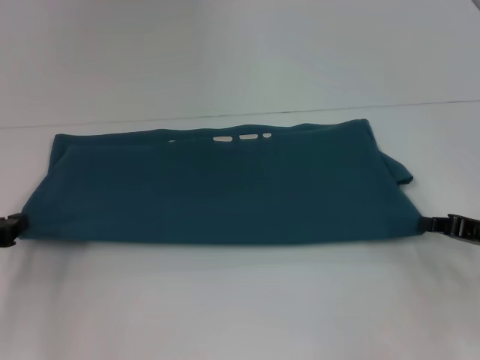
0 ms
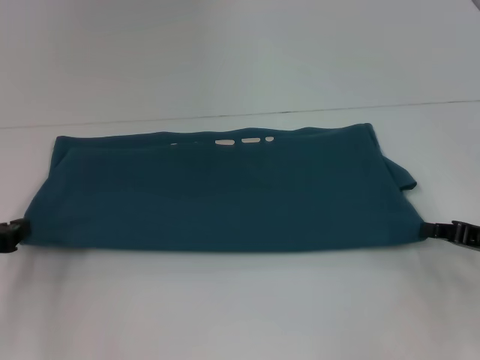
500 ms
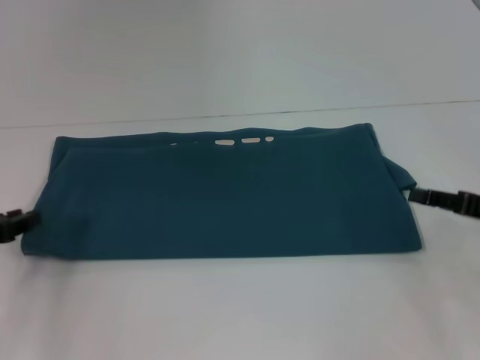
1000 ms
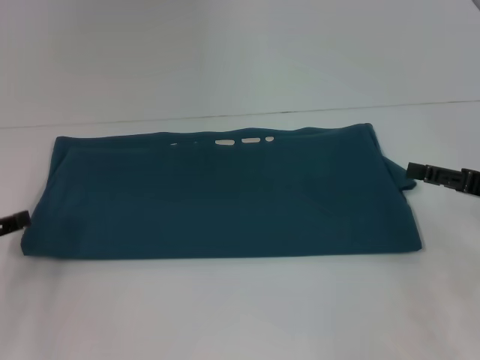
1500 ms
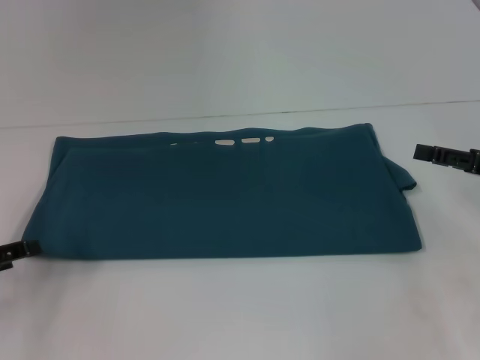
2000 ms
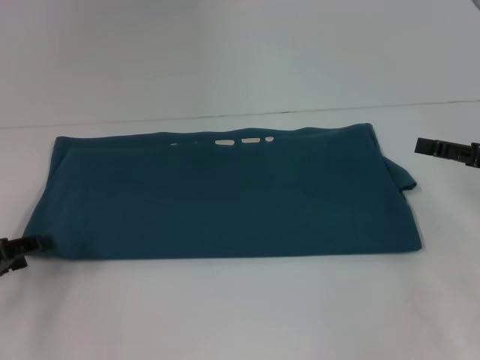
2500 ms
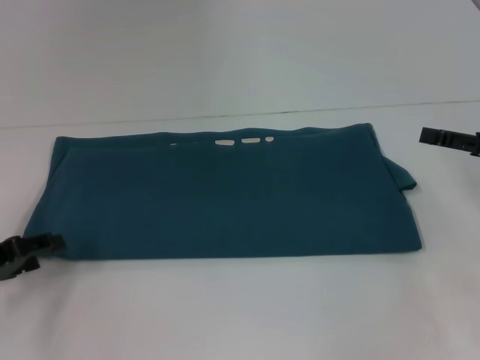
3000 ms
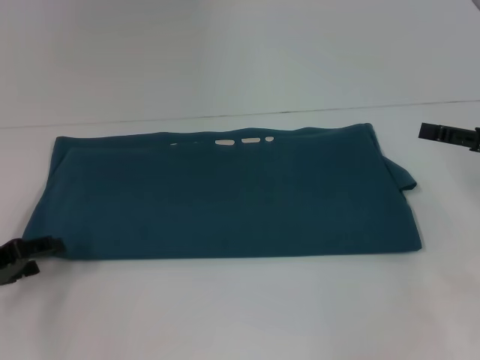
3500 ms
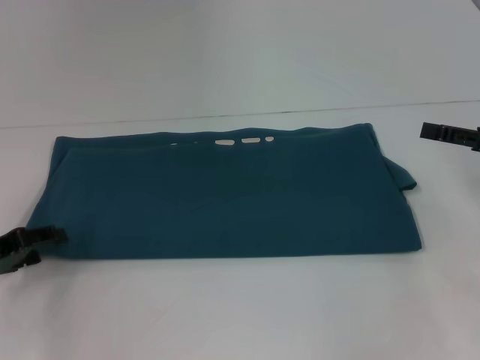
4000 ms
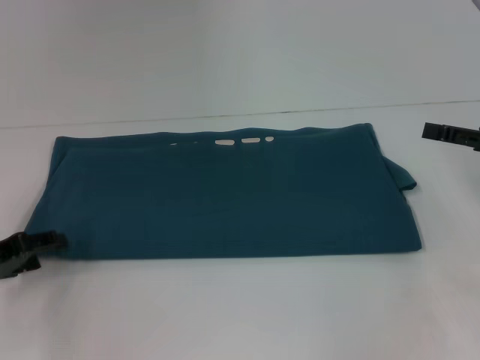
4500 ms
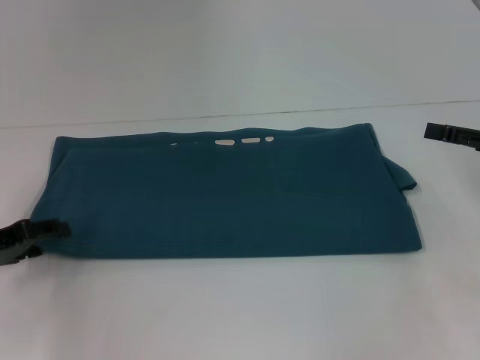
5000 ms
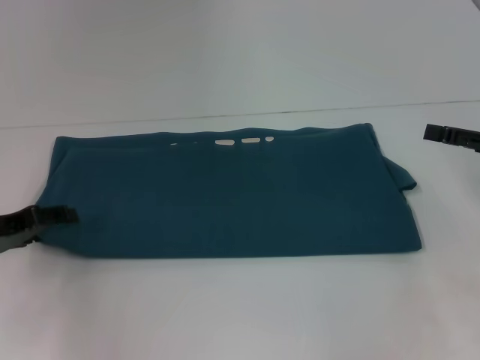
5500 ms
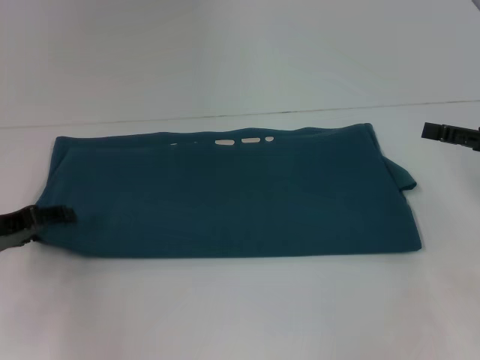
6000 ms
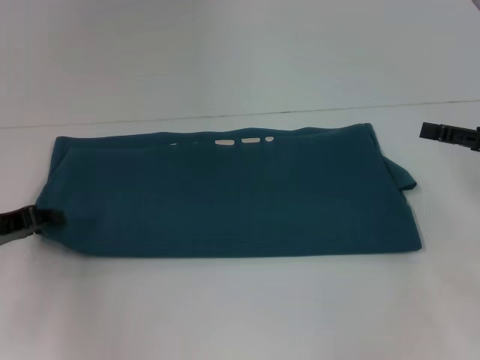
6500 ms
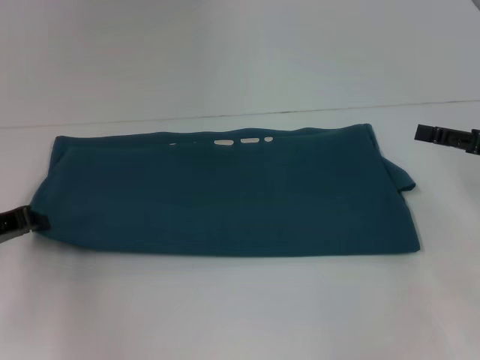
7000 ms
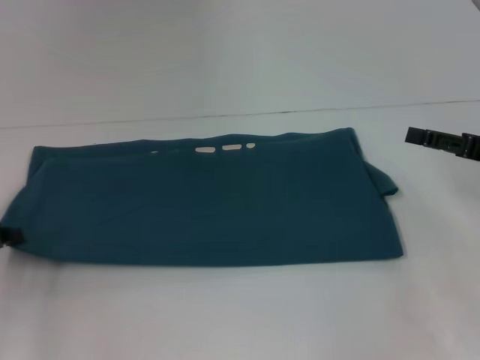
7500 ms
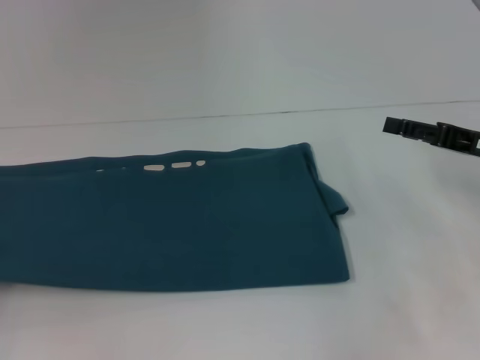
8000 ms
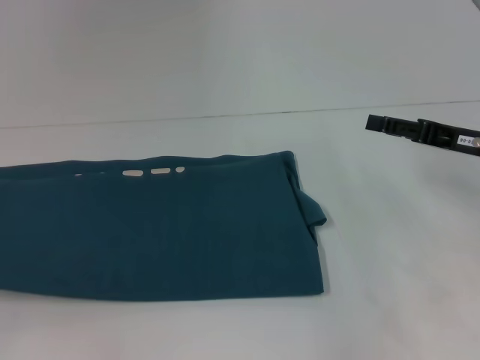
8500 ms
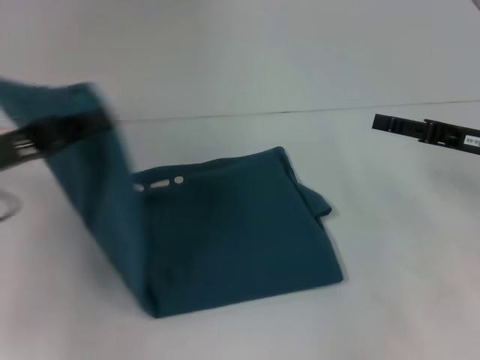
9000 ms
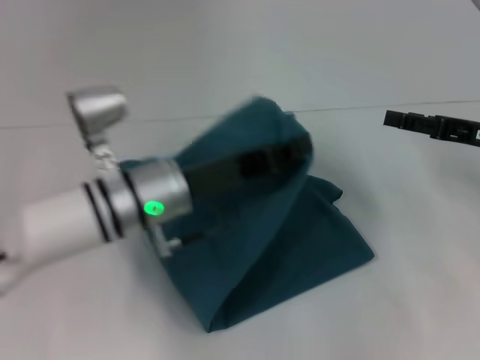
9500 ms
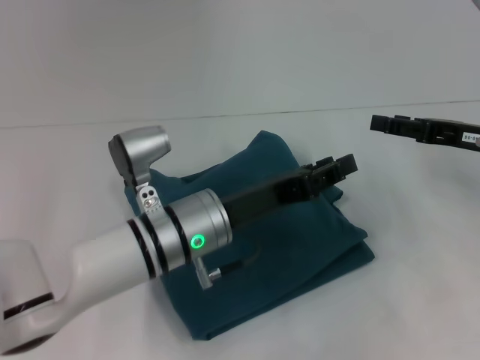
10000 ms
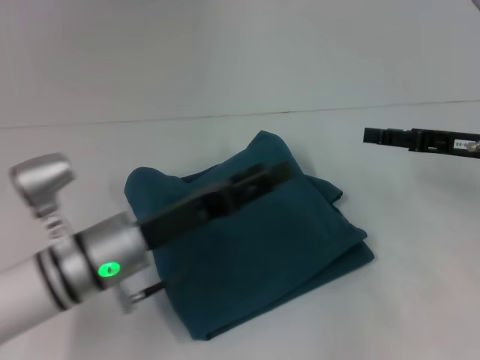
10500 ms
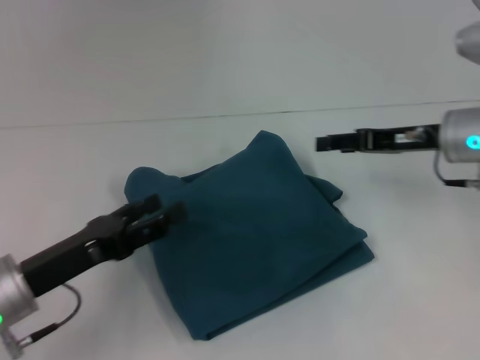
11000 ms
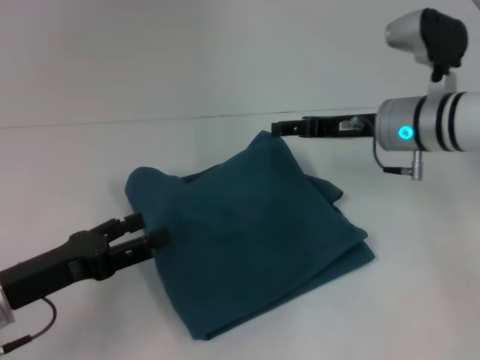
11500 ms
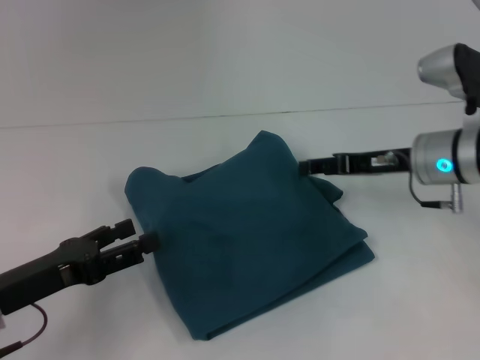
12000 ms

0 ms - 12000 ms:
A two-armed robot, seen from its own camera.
Step, 0 ms - 9500 ms: Fold the clothes to the left.
0 ms - 2000 ms: The left gripper opens its fingers. The right gripper is displaced upward by roughly 5 cm, and opens up.
2000 ms - 4000 ms: The grippers move only a little.
4000 ms - 6000 ms: The grippers move only a little.
6000 ms - 8000 ms: The left gripper heads to the left and backward, covering approximately 10 cm, and closes up.
8000 ms - 10000 ms: The left gripper travels to the right by approximately 35 cm.
10000 ms - 12000 ms: The left gripper is displaced to the left by approximately 20 cm, and opens; the right gripper travels to the left by roughly 10 cm.

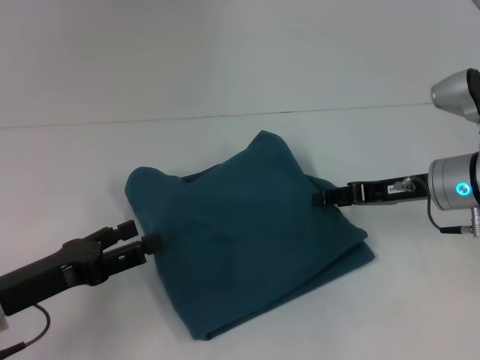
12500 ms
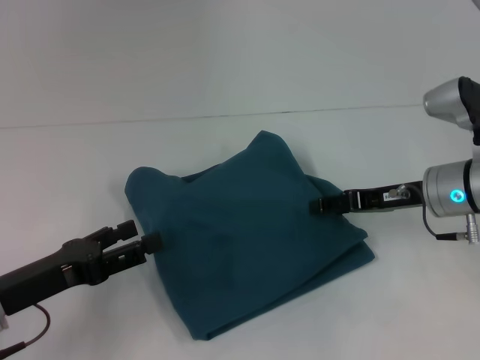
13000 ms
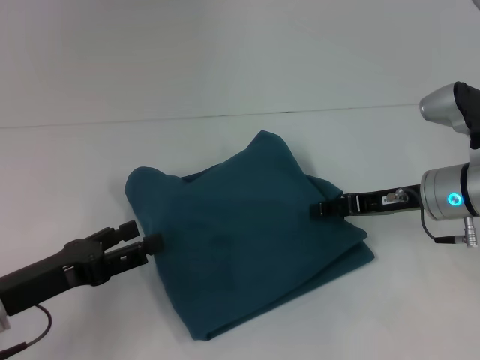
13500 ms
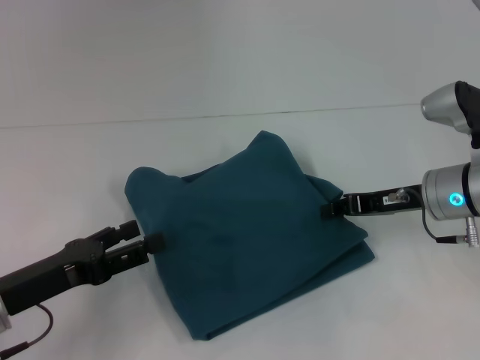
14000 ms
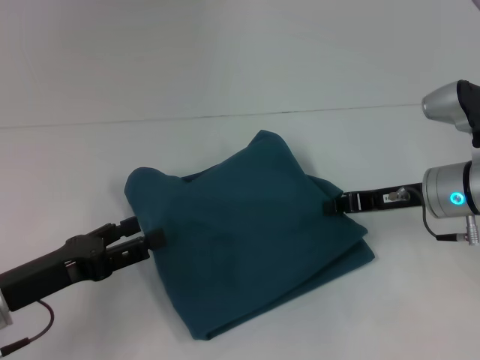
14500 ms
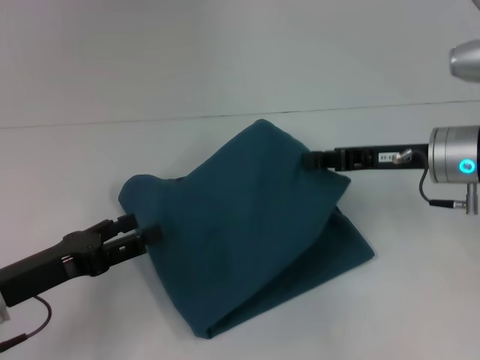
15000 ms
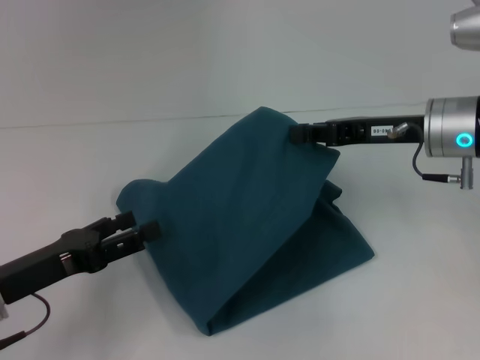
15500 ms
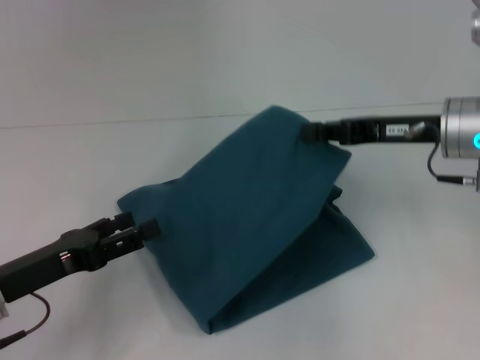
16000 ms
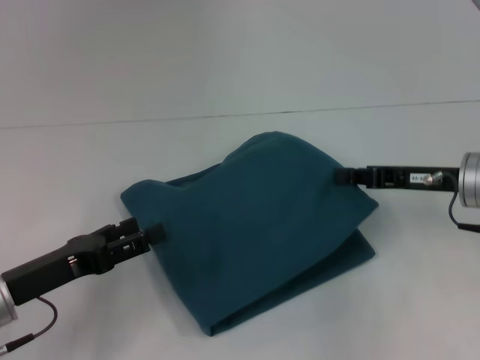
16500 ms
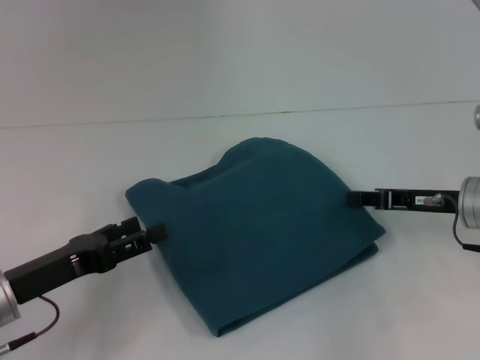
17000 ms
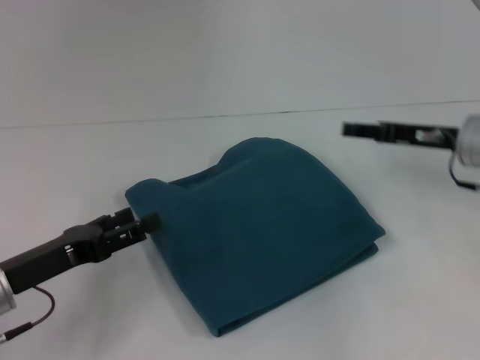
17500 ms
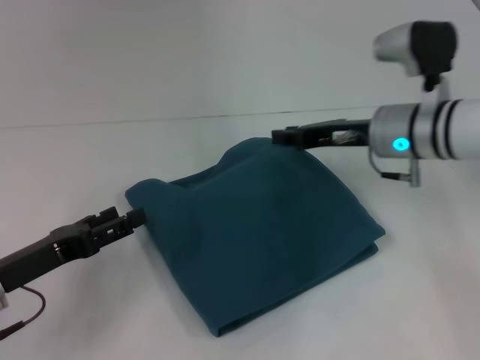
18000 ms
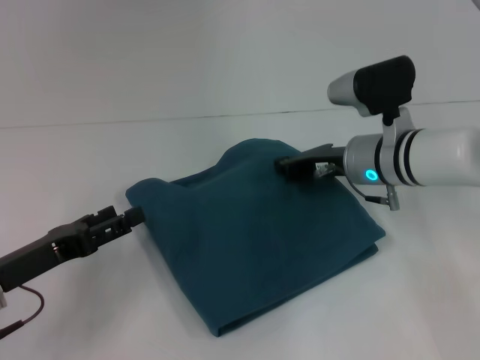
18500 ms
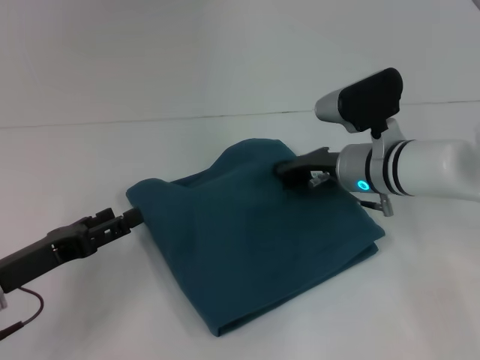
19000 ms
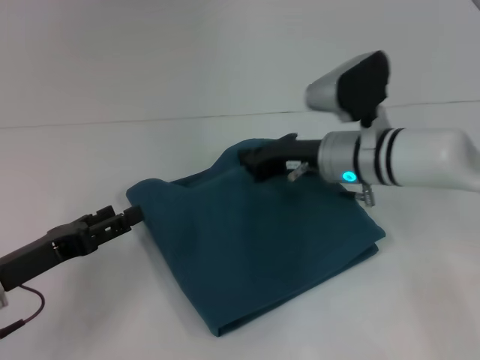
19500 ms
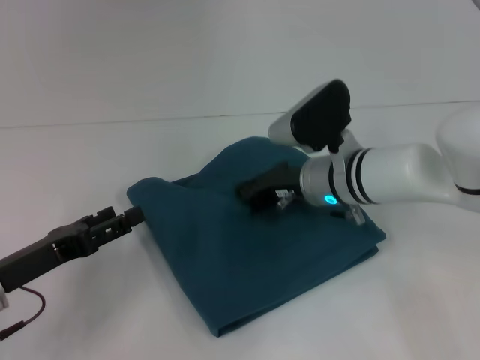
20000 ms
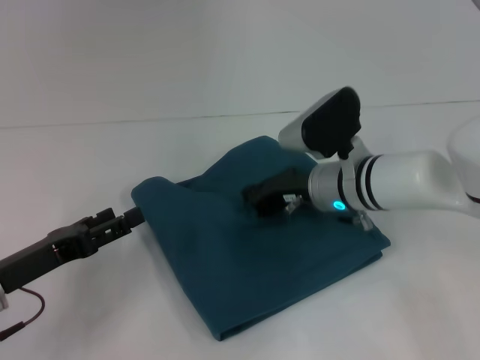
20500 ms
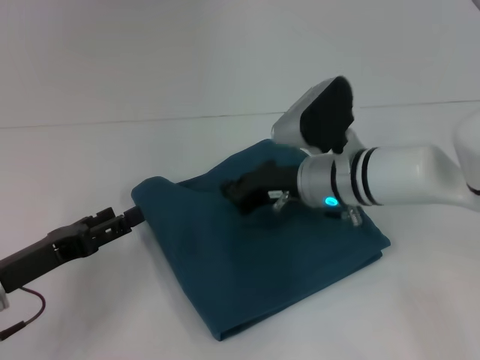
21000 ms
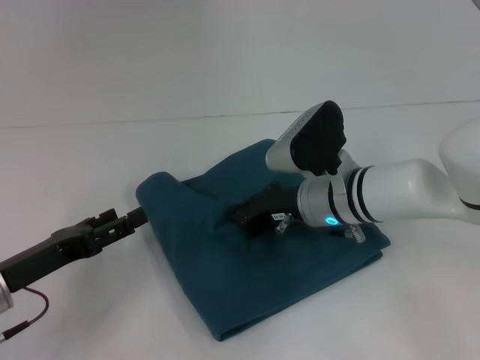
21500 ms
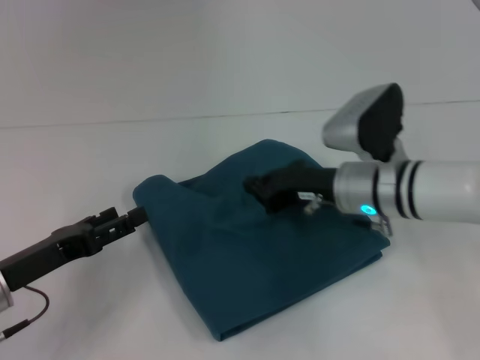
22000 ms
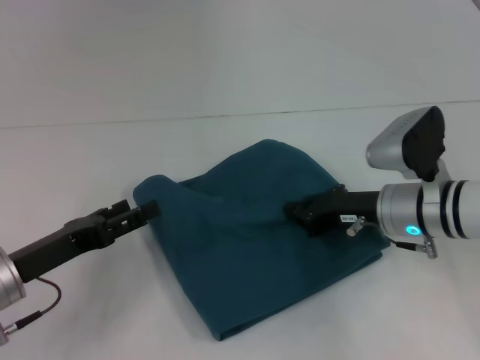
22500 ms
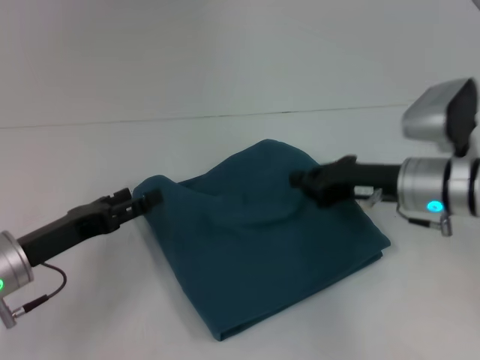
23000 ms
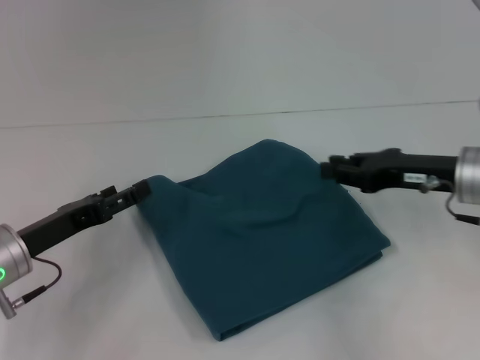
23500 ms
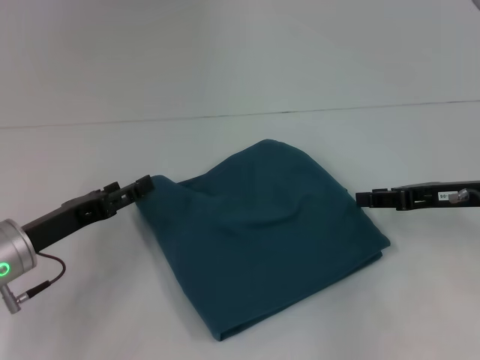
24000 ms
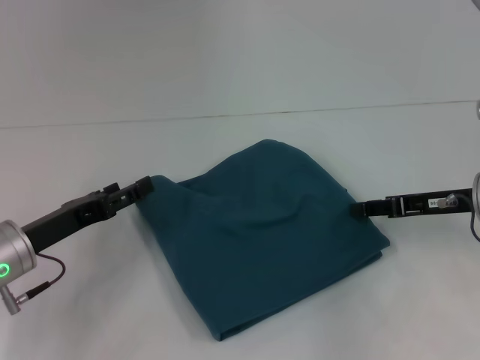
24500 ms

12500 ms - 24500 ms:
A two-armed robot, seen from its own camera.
12500 ms - 14500 ms: The right gripper closes up.
16500 ms - 18500 ms: The right gripper heads to the left and forward, covering about 10 cm, and opens and closes again.
18500 ms - 20500 ms: The grippers stay close to where they were, moving slightly.
20500 ms - 22500 ms: The right gripper travels to the right by roughly 5 cm.
22500 ms - 24500 ms: The right gripper travels to the right by some 10 cm, and opens up.

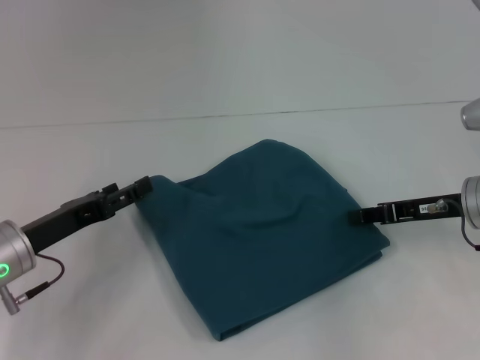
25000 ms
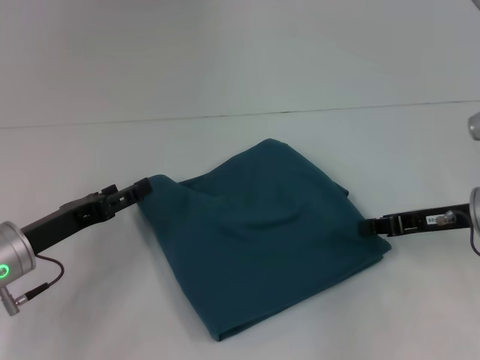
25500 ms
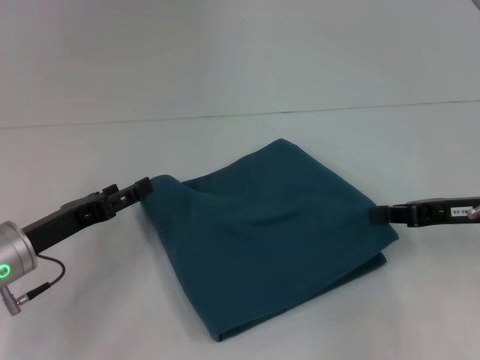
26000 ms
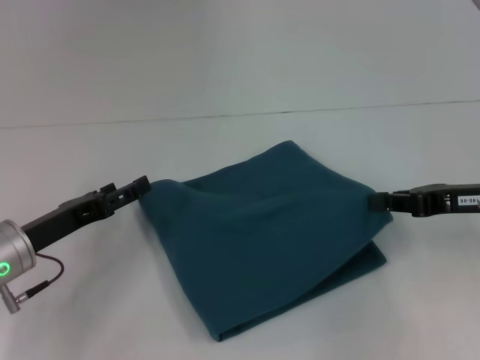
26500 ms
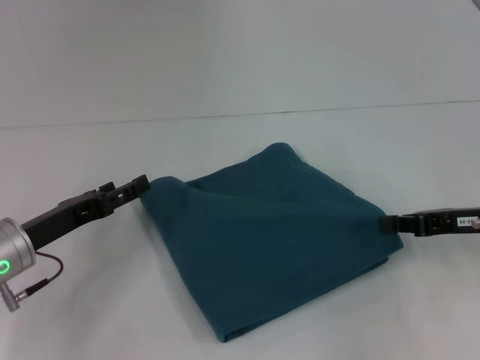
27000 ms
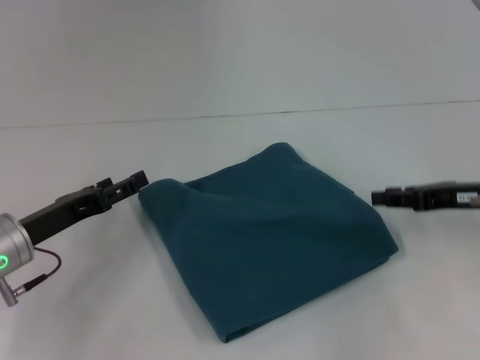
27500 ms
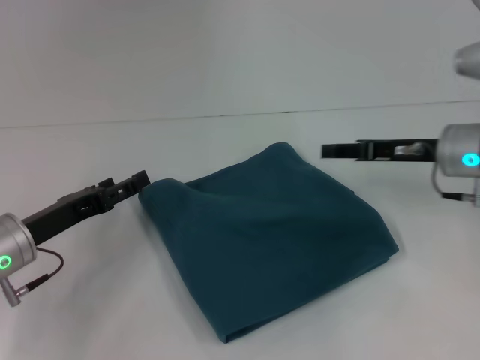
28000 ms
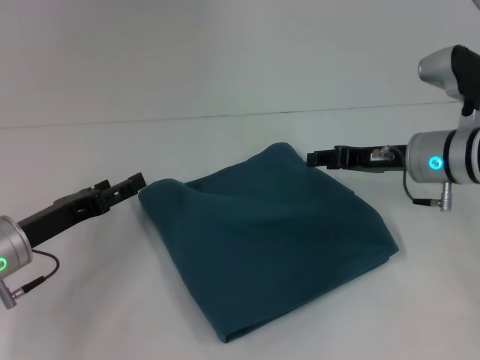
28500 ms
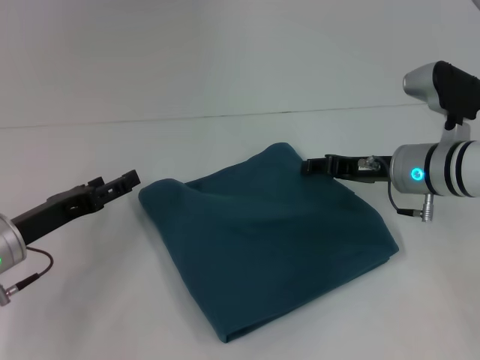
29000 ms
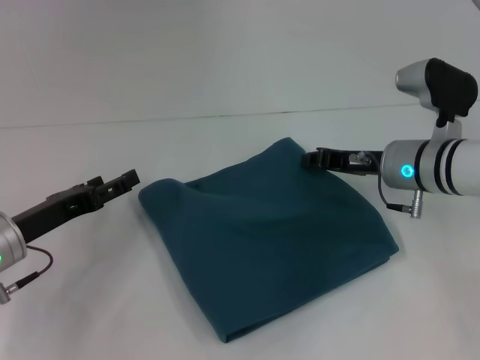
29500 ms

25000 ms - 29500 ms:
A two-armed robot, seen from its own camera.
25000 ms - 27000 ms: The right gripper closes up.
27000 ms - 29500 ms: The right gripper is displaced to the left and forward by approximately 15 cm, and opens its fingers.
